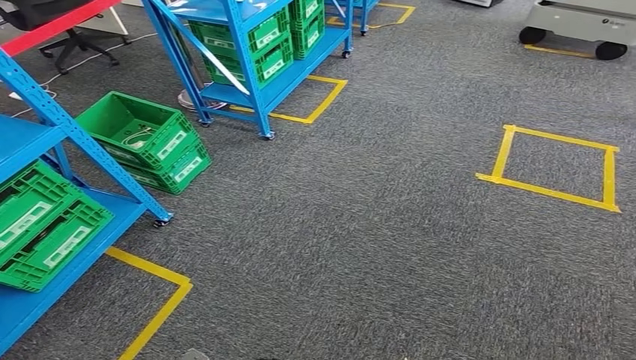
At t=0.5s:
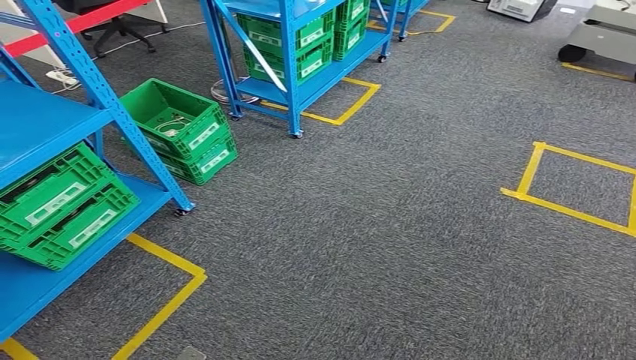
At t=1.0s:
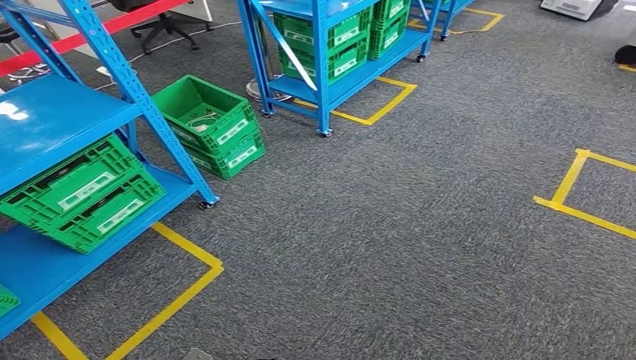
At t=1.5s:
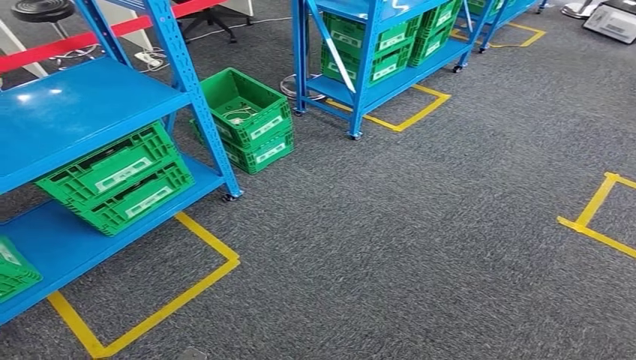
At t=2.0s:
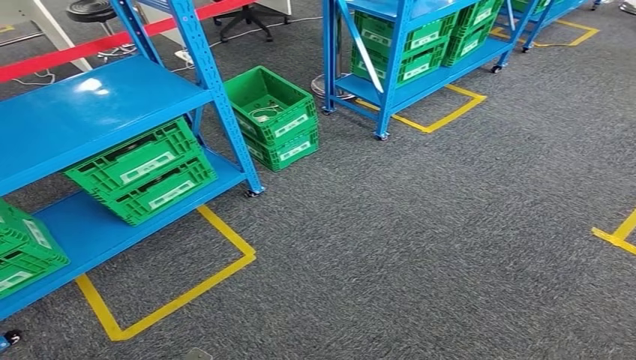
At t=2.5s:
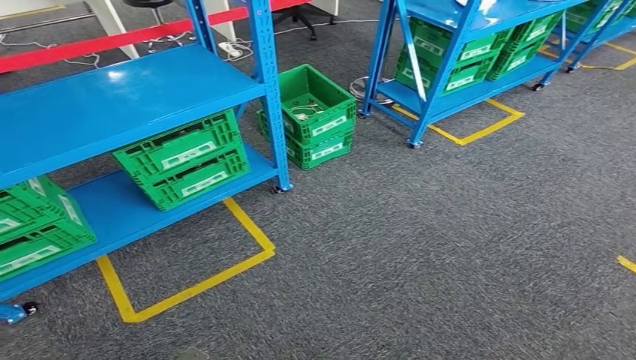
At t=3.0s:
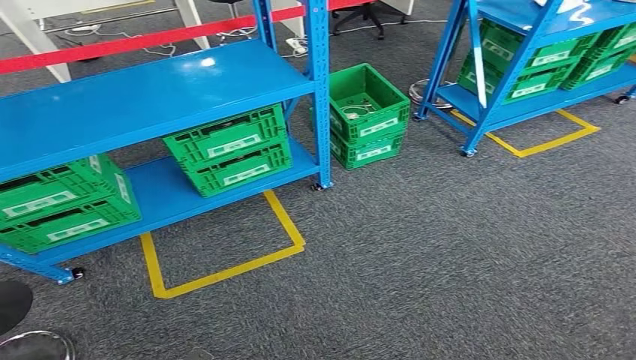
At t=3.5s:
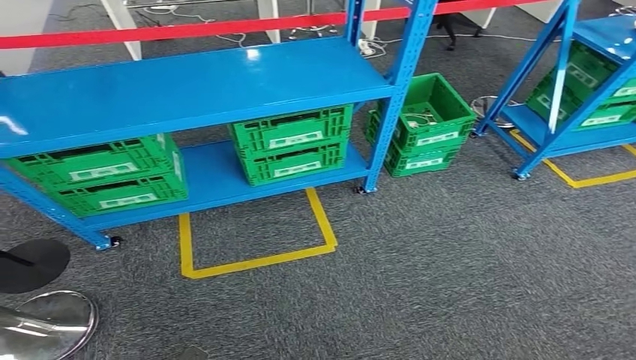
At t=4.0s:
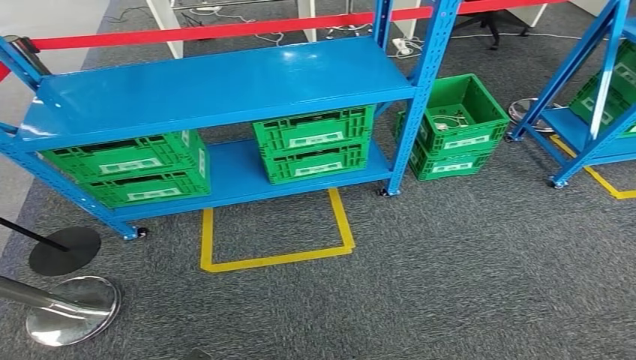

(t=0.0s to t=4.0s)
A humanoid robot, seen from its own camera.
Step, t=0.0s - t=4.0s: Move to the initial position of the workbench.
